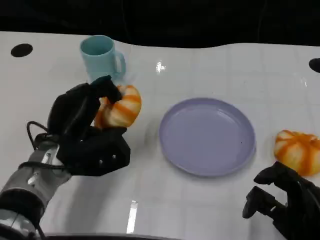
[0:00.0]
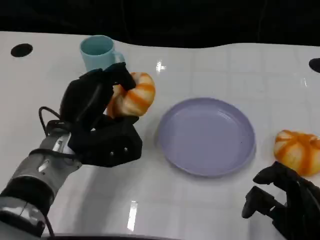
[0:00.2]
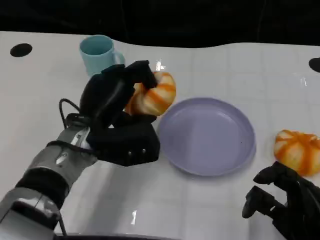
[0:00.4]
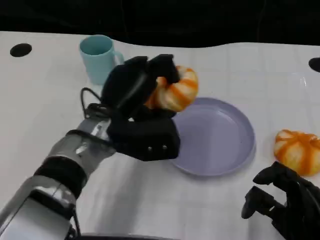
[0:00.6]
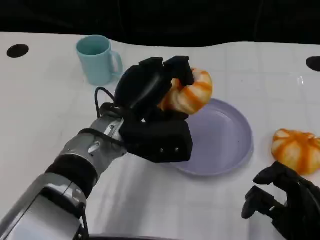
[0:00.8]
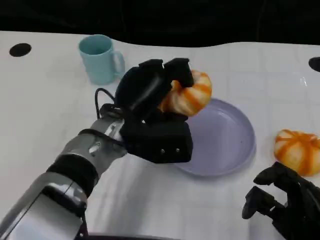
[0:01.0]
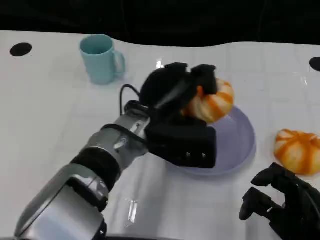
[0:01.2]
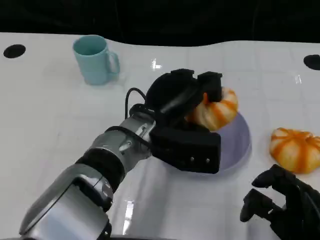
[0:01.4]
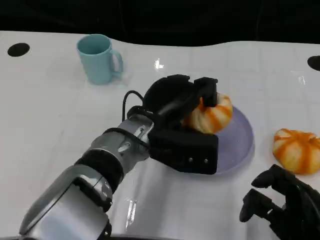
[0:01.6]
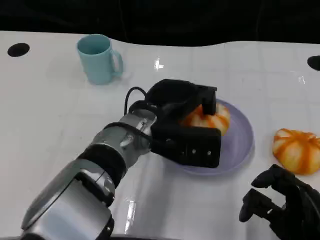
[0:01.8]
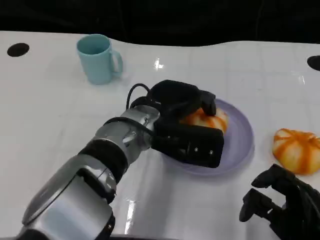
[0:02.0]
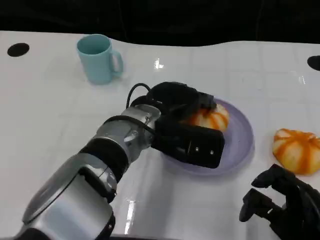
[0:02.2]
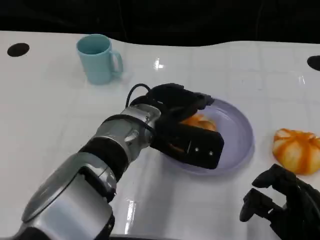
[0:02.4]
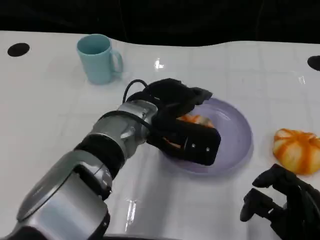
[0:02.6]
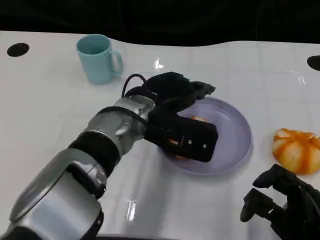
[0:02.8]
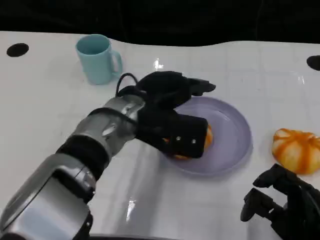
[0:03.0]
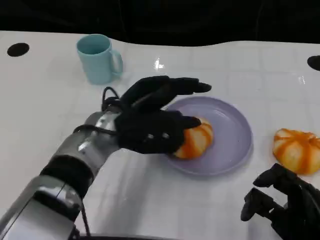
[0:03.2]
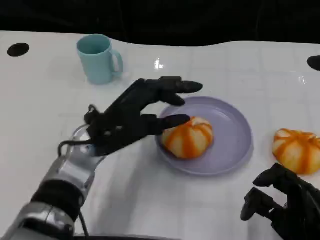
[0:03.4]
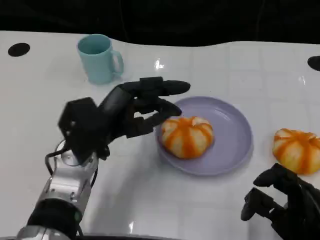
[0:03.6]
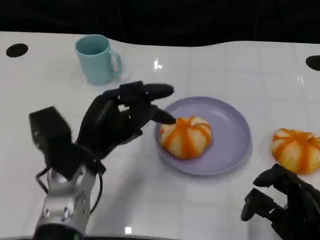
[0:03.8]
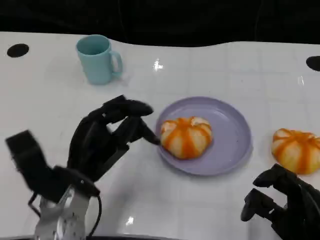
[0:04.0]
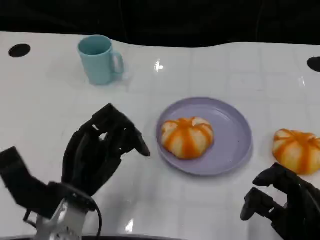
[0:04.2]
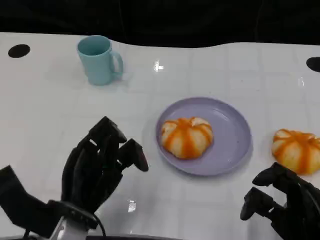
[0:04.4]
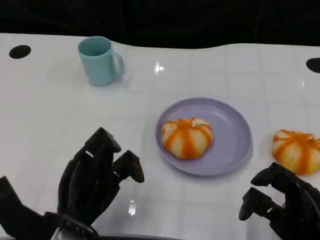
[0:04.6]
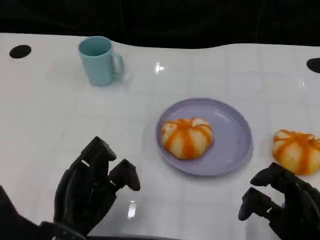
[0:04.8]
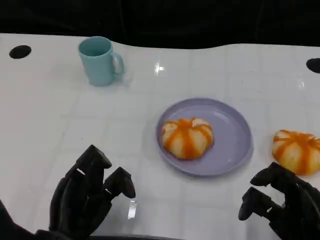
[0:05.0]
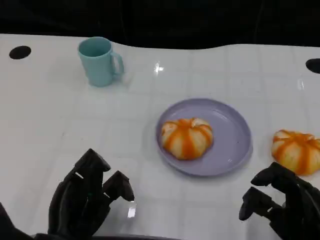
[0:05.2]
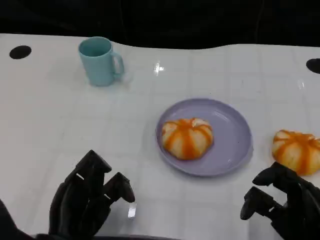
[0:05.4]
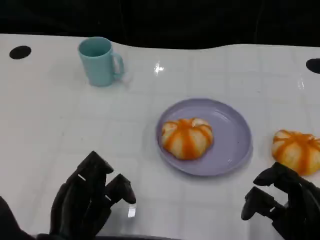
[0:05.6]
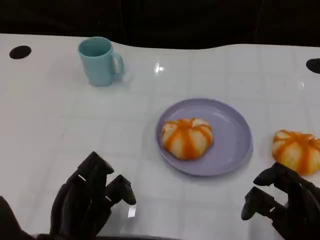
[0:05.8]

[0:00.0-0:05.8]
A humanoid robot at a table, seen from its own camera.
Task of the whole recording: Grasp the bread from the table and place it into the plate.
0:00.0 to 0:01.4: The left hand travels to the right by some 10 cm.
0:02.8 to 0:04.4: The left hand goes about 20 cm backward, to the left and downward.
0:04.4 to 0:05.8: The hands make only small movements.

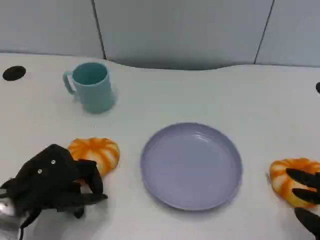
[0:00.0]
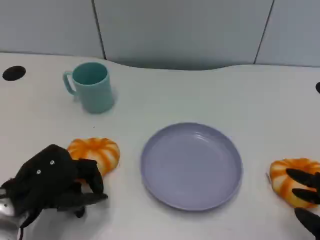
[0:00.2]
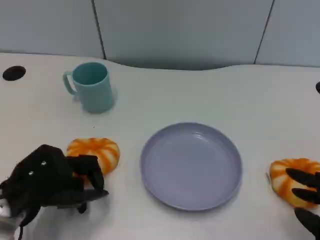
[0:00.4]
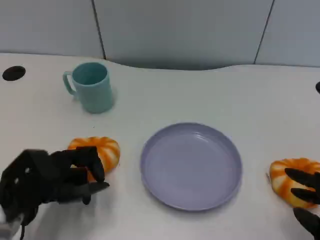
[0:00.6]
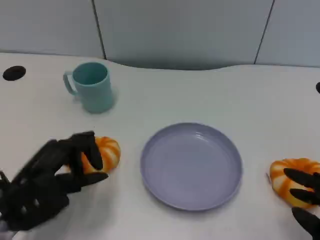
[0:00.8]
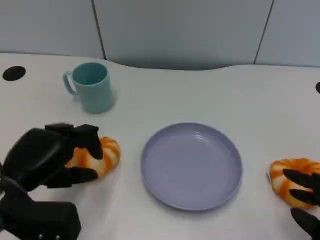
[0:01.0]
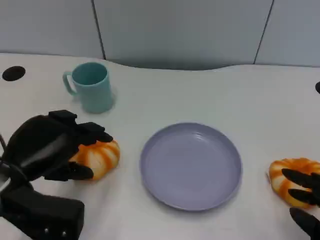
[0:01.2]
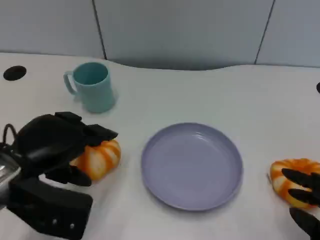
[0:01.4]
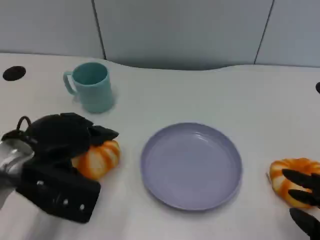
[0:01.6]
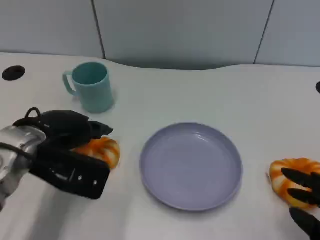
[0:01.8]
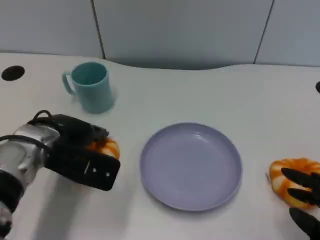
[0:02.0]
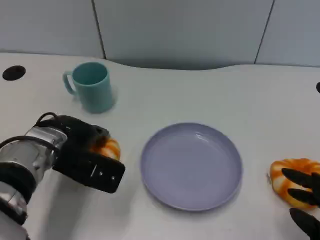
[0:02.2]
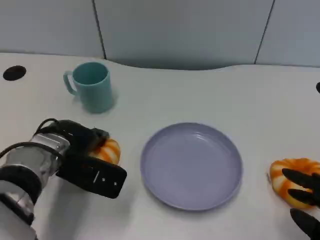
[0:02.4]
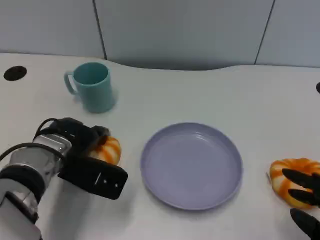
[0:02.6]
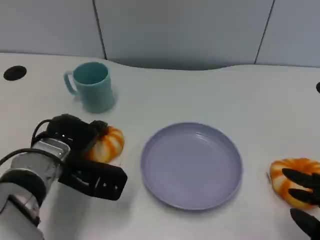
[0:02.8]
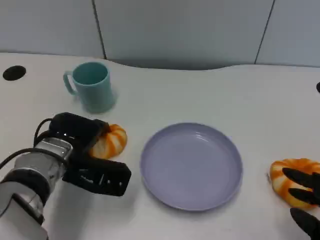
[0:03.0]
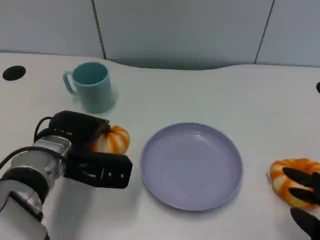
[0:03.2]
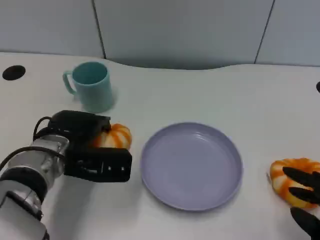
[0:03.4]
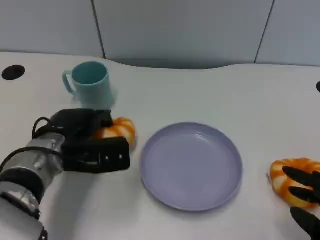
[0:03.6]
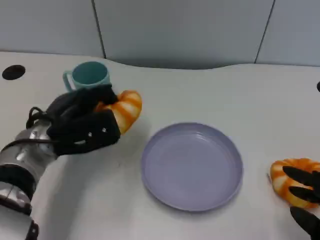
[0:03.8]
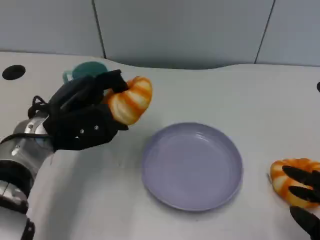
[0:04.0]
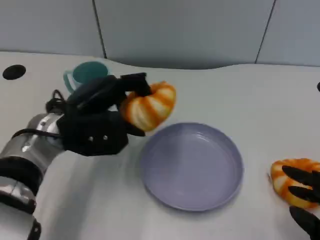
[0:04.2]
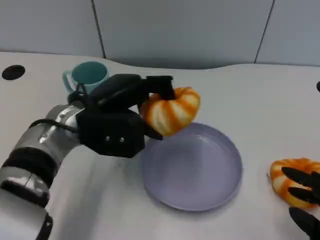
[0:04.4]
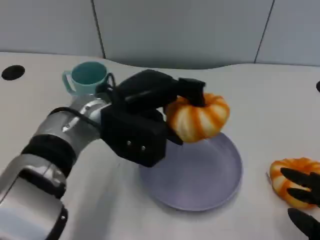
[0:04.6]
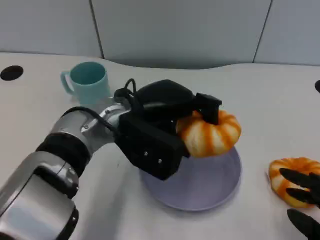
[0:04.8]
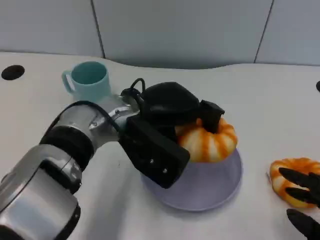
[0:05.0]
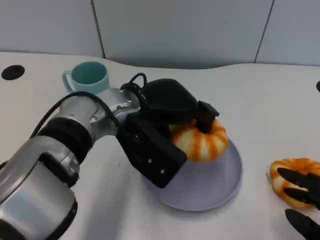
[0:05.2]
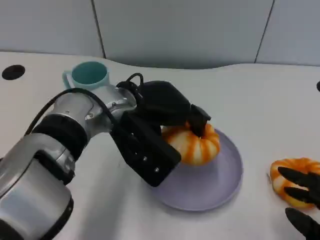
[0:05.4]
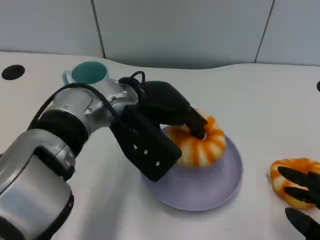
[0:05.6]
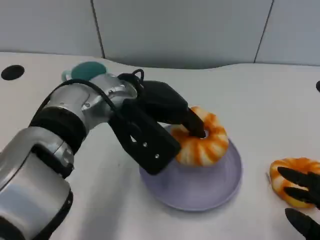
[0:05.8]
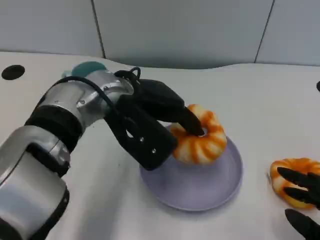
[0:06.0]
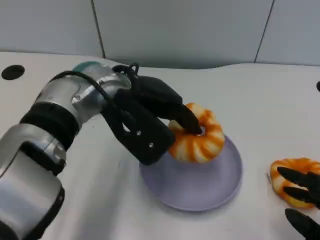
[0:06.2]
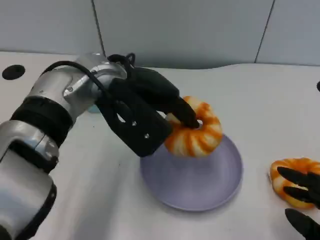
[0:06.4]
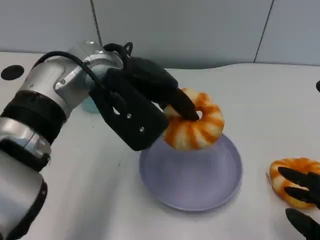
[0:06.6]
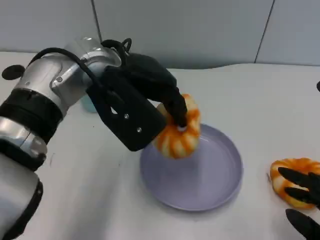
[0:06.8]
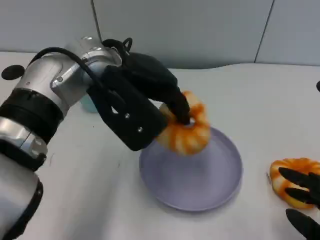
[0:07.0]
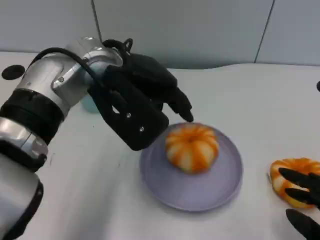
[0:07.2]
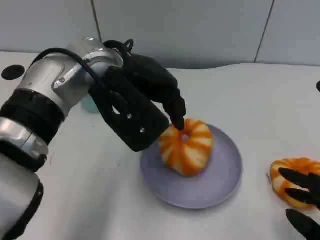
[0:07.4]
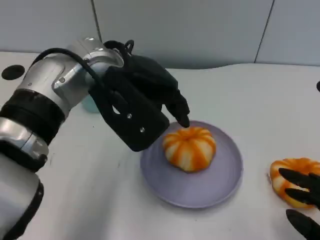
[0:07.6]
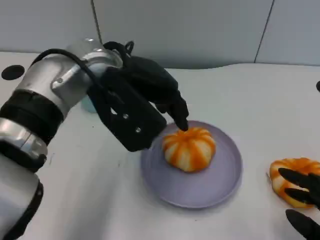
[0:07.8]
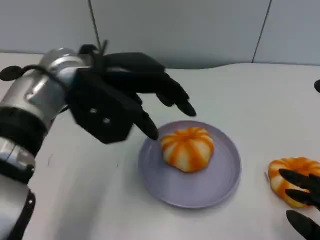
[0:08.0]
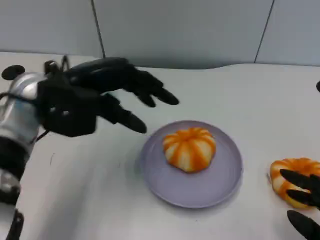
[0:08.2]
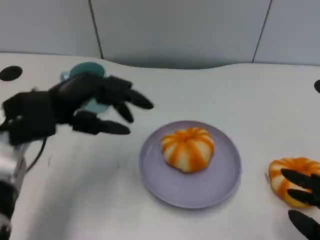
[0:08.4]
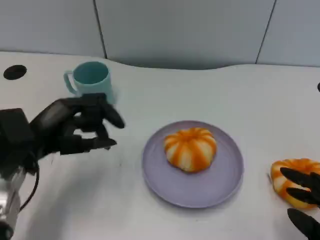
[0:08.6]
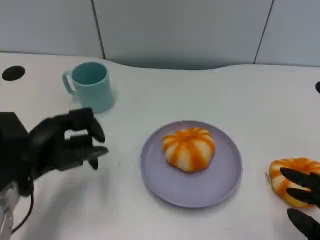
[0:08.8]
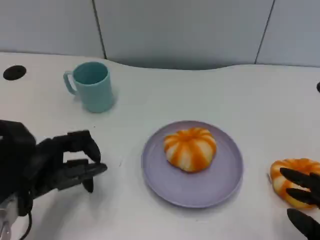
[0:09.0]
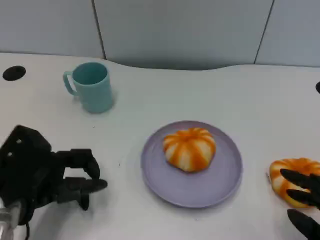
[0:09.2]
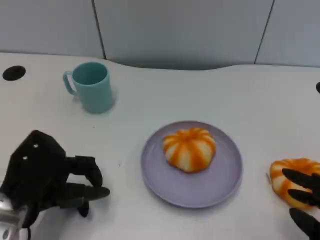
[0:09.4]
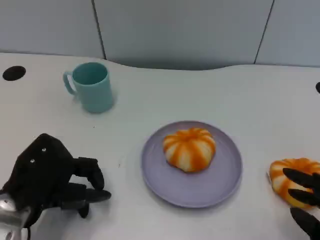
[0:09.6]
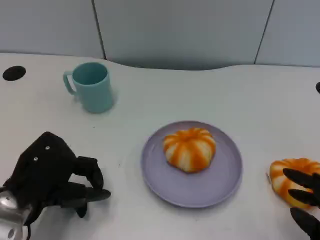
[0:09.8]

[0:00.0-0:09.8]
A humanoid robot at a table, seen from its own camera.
Task of the whole recording: Grasp the bread from the table and place it into the plate.
0:00.0 to 0:01.4: The left hand heads upward, covering approximately 5 cm.
0:01.4 to 0:02.8: The left hand travels downward and forward by about 10 cm.
0:02.8 to 0:04.2: The left hand goes roughly 5 cm upward.
0:04.2 to 0:05.6: The left hand travels to the right by approximately 10 cm.
0:05.6 to 0:07.0: The left hand heads upward, covering approximately 5 cm.
0:07.0 to 0:08.4: The left hand is displaced to the left and downward by some 15 cm.
0:08.4 to 0:09.8: The left hand travels downward and backward by roughly 10 cm.

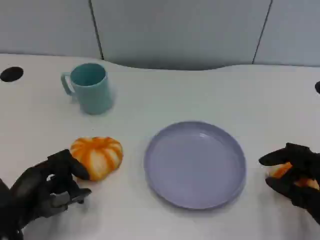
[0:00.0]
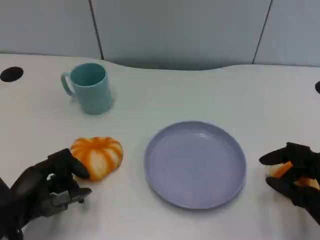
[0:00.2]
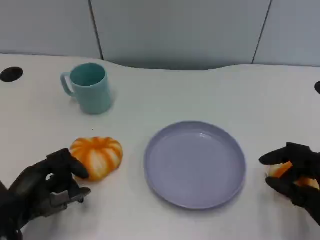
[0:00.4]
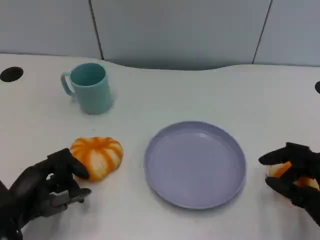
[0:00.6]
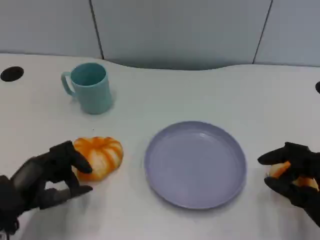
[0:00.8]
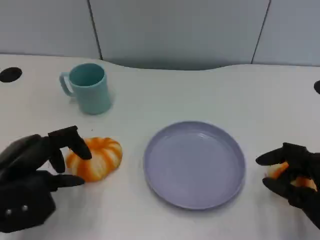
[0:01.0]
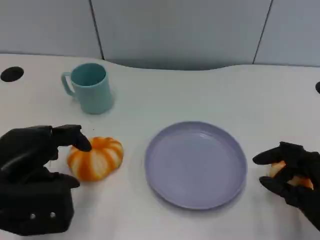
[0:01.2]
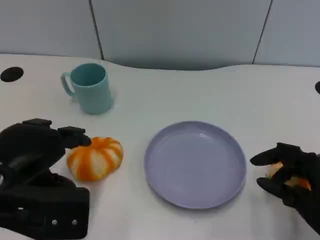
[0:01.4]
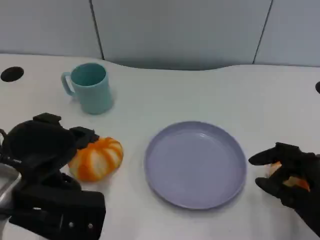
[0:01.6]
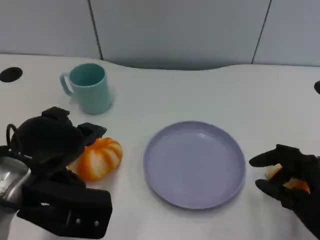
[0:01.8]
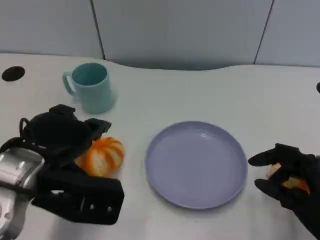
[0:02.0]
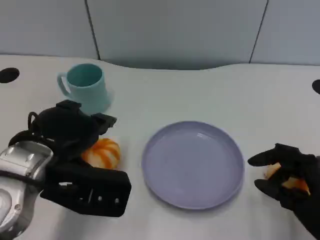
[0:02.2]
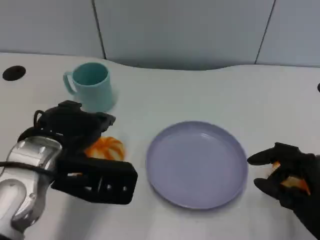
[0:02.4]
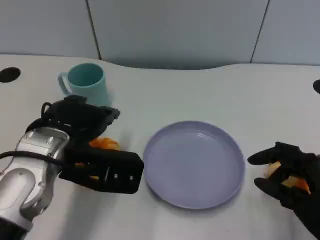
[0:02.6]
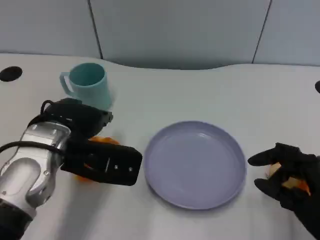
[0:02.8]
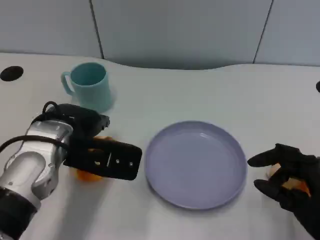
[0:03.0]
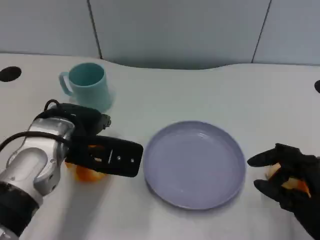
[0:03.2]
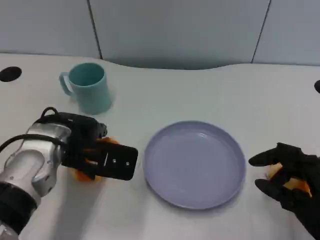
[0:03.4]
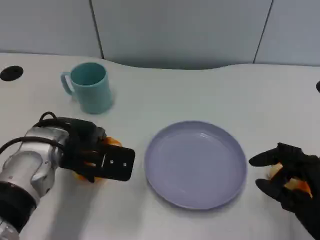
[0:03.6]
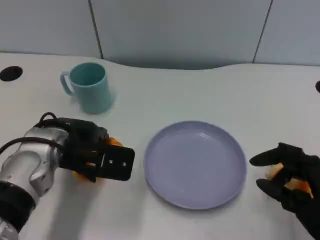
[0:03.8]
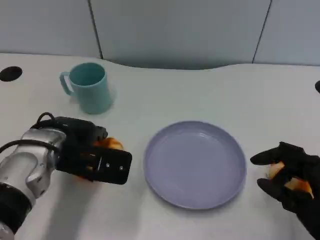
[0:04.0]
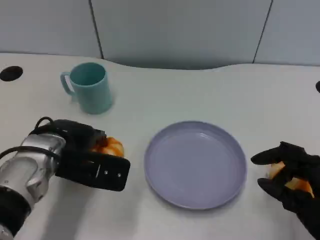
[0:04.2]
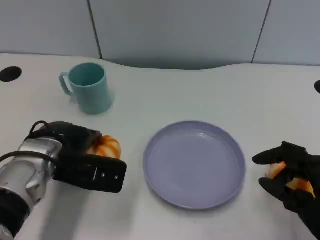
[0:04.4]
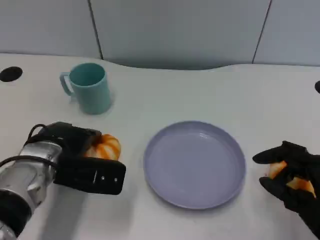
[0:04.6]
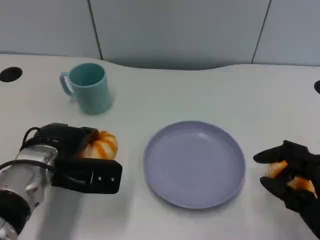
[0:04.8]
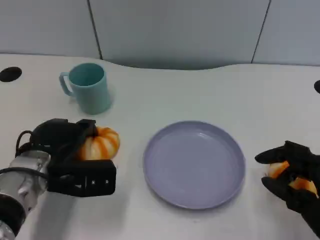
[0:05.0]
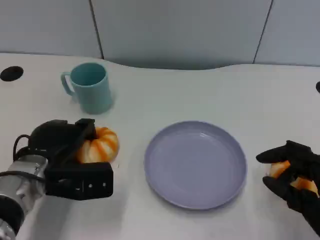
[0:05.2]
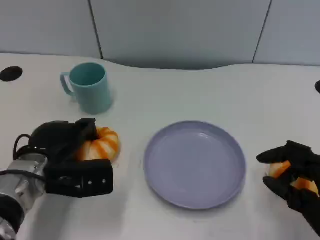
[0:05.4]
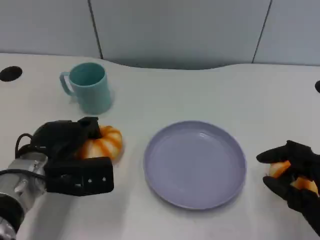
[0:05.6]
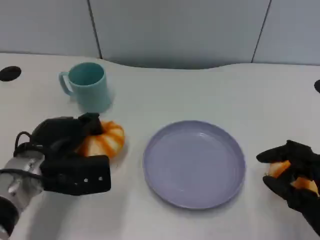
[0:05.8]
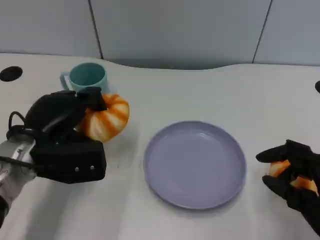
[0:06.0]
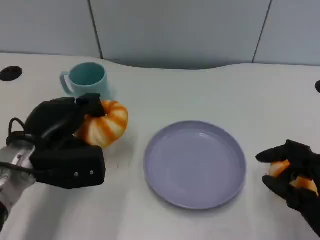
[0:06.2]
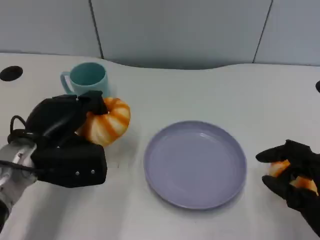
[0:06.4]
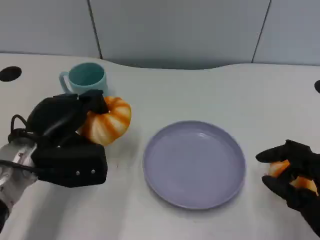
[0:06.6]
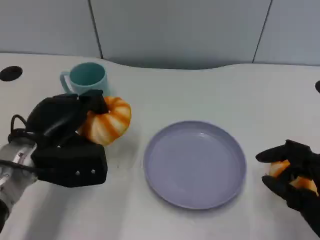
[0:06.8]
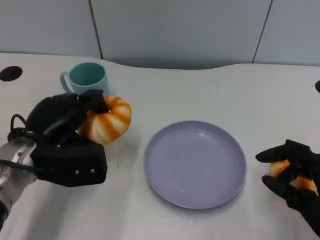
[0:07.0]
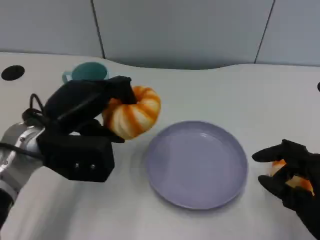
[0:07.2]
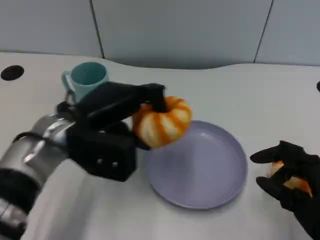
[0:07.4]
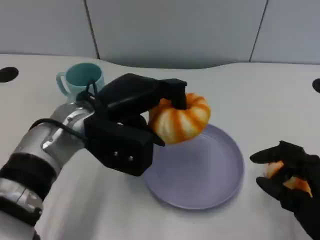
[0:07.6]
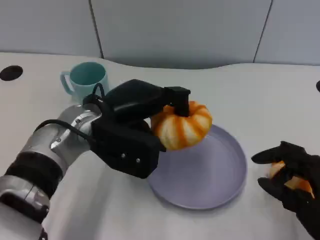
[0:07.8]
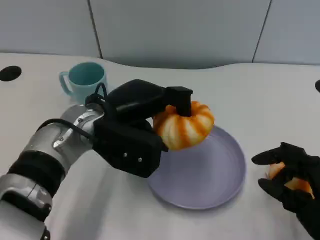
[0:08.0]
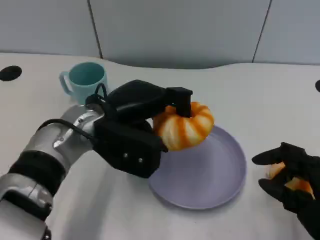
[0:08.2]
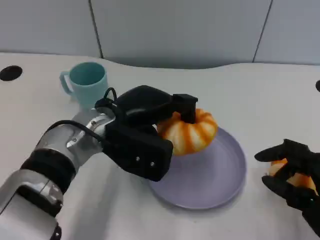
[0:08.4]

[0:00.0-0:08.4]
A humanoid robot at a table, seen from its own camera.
Task of the whole recording: Grasp the bread from the table and place it into the plate.
0:00.0 to 0:01.4: The left hand goes approximately 15 cm upward.
0:01.4 to 0:02.8: The left hand is displaced forward and to the right by some 10 cm.
0:02.8 to 0:04.2: The hands stay close to where they were, moving slightly.
0:05.6 to 0:07.0: The hands make only small movements.
0:07.0 to 0:08.4: The left hand goes some 10 cm to the right.
